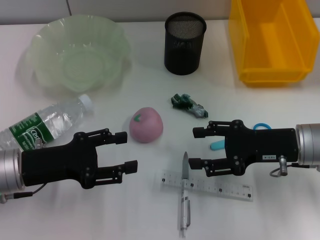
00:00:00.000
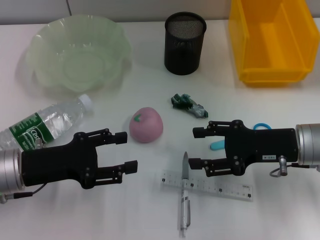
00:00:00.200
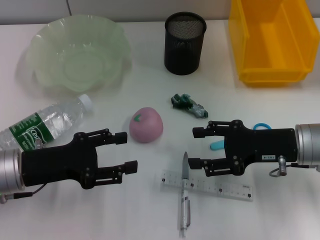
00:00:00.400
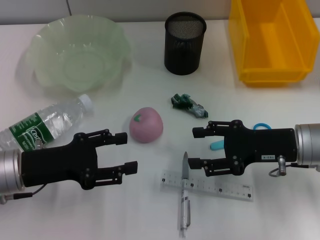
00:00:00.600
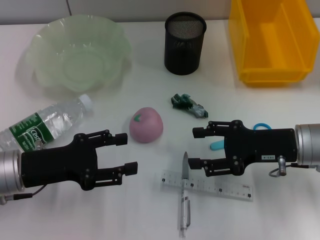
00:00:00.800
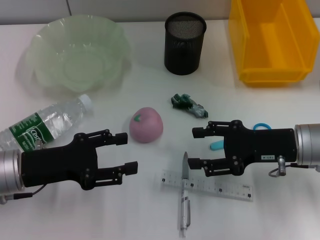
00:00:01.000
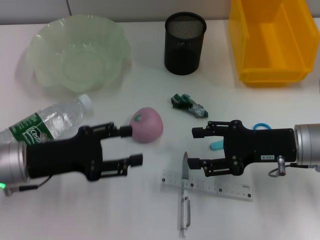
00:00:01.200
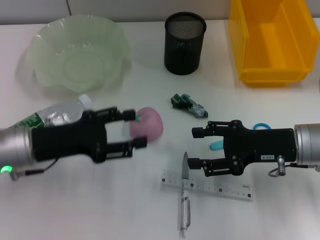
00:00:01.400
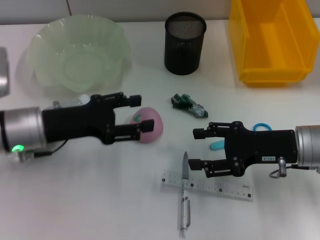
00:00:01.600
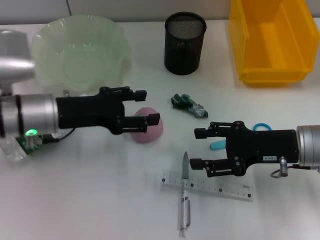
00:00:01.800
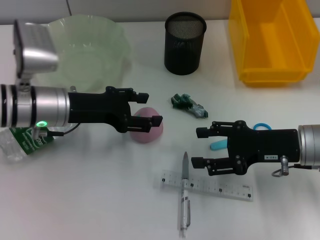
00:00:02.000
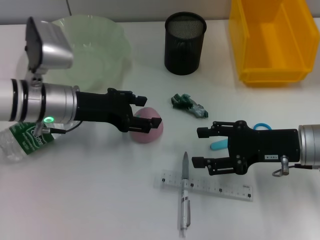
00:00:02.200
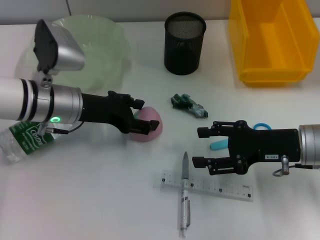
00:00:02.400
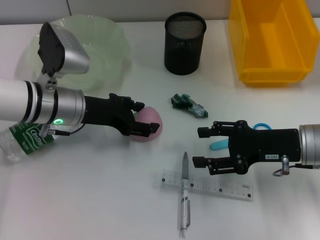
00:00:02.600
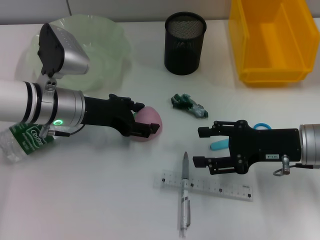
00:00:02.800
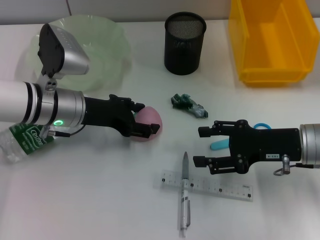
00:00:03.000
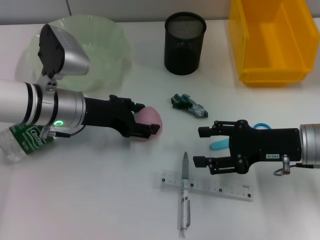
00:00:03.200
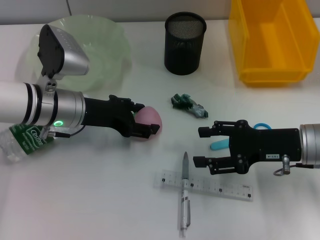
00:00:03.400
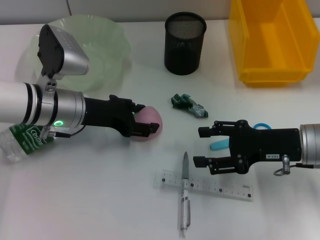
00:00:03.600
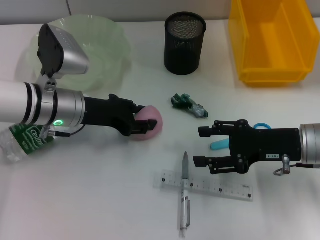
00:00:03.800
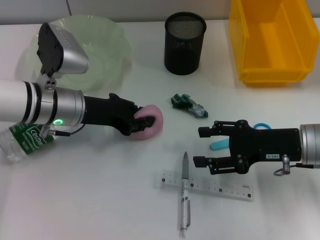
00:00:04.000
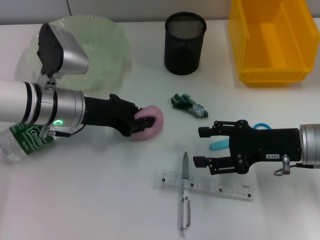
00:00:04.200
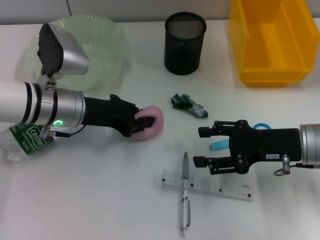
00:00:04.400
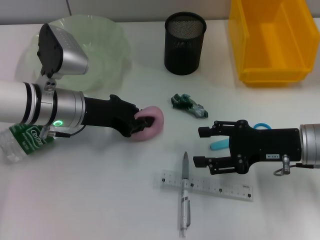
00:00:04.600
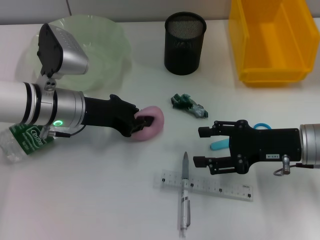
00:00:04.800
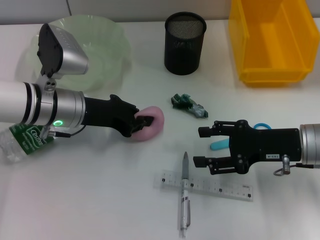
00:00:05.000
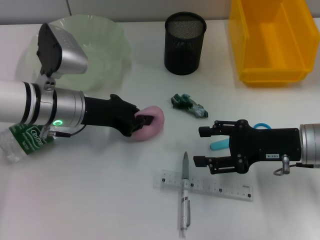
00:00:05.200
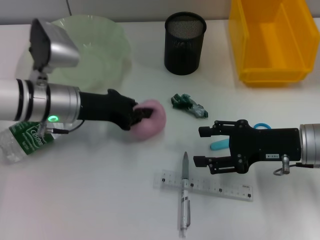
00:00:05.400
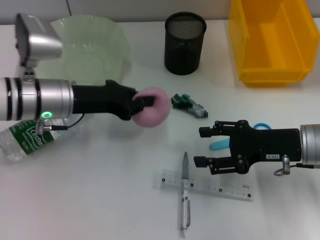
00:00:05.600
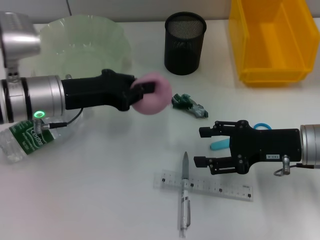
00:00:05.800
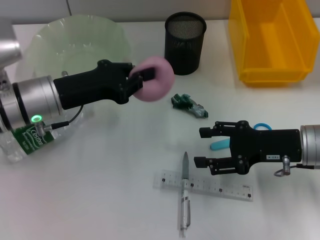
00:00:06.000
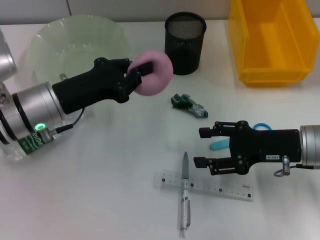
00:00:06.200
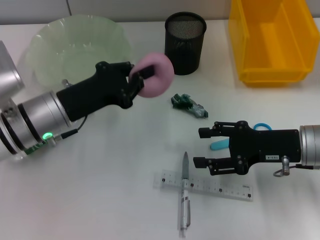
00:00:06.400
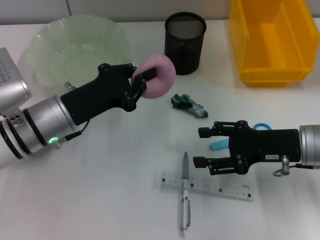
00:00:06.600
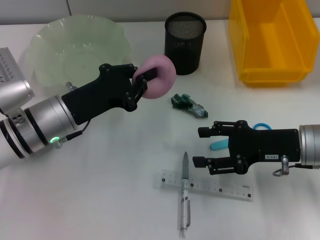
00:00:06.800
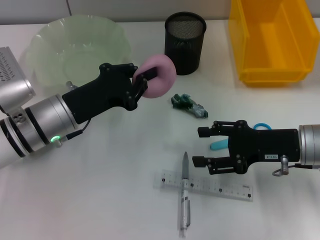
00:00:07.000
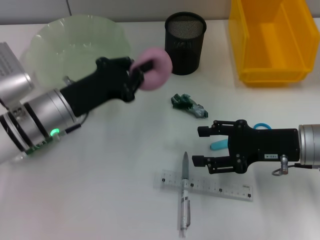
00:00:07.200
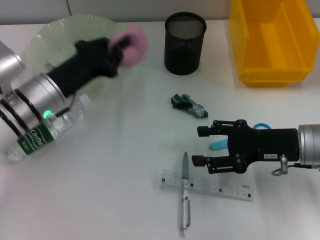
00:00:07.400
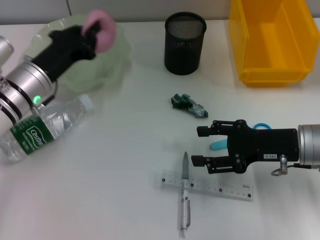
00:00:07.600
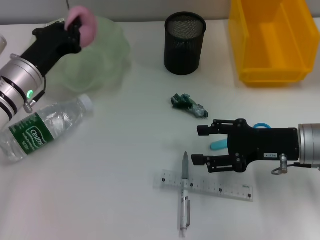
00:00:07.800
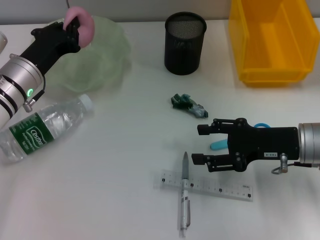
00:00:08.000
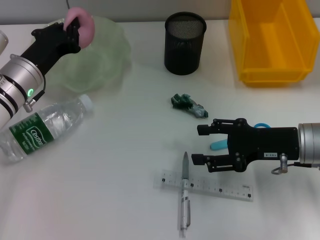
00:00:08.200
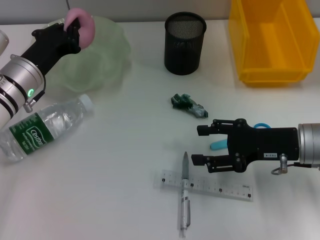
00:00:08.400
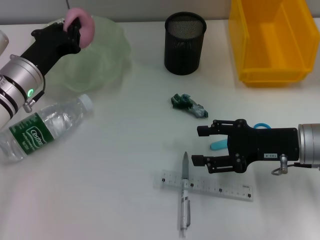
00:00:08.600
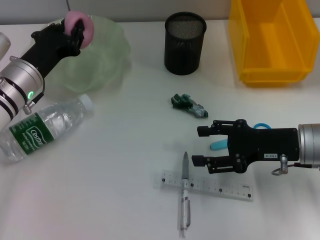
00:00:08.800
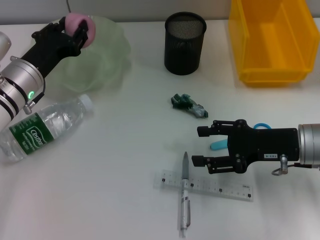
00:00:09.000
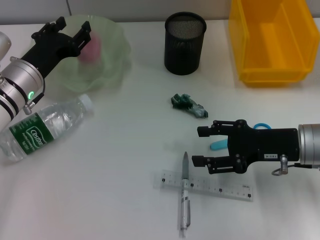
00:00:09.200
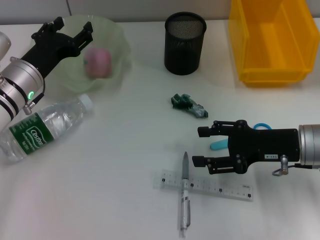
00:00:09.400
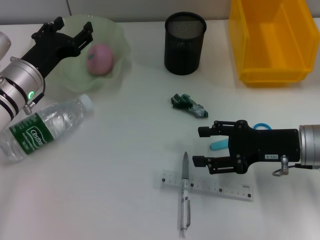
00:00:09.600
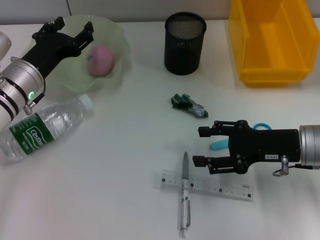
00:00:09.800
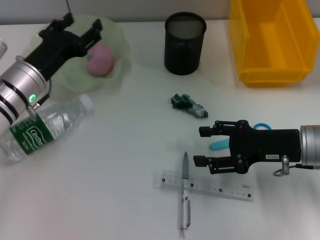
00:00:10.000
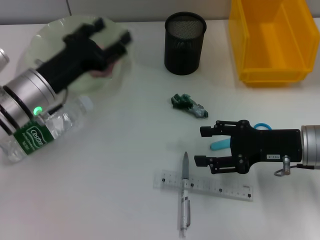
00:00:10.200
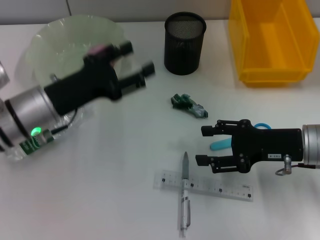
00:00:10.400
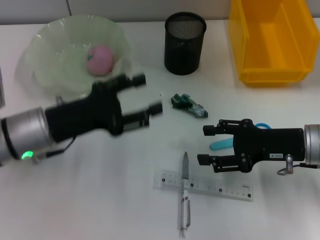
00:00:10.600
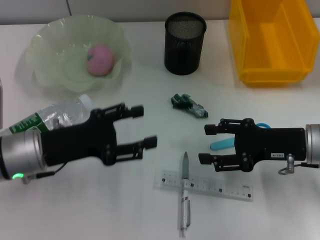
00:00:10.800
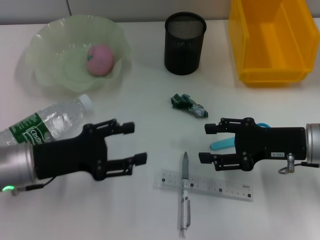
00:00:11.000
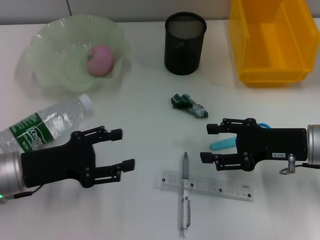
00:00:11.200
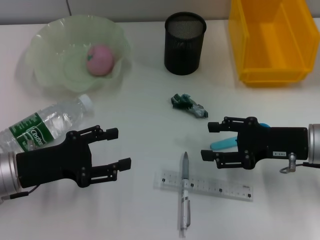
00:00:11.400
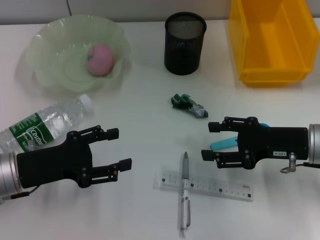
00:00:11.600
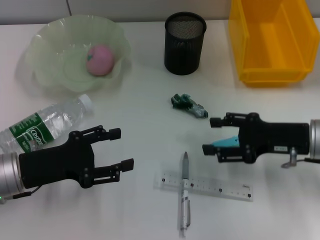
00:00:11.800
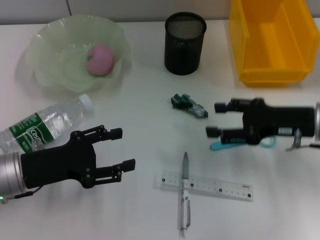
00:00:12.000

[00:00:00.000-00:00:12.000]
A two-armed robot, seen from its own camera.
Step, 00:00:00.000 to 00:00:05.000: Grab the peach with the left hand.
Step, 00:00:05.400 to 00:00:09.400: Place the peach into the fruit bowl with the left hand.
00:00:00.000 to 00:00:01.600: The left gripper heads forward, covering roughly 5 cm.
00:00:01.600 to 00:00:03.000: The left gripper goes about 5 cm forward.
00:00:03.000 to 00:00:04.400: The left gripper closes its fingers.
00:00:07.600 to 00:00:09.000: The left gripper opens up.
00:00:09.000 to 00:00:10.400: The left gripper travels backward by roughly 5 cm, and opens its fingers.
00:00:10.400 to 00:00:12.000: The left gripper goes approximately 5 cm backward.

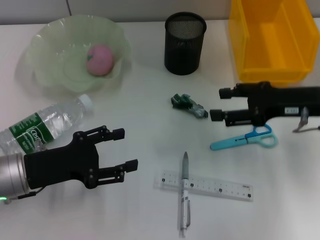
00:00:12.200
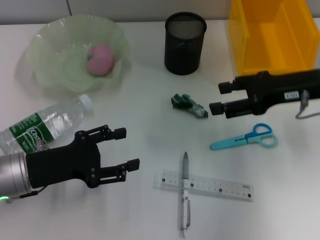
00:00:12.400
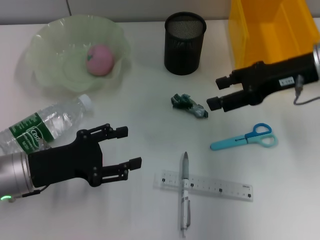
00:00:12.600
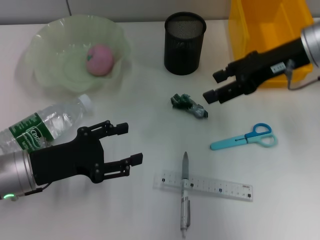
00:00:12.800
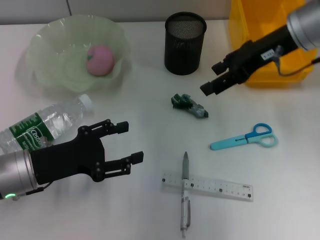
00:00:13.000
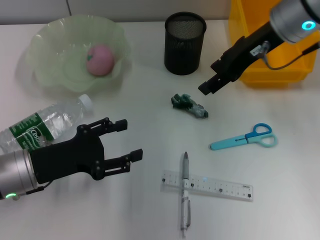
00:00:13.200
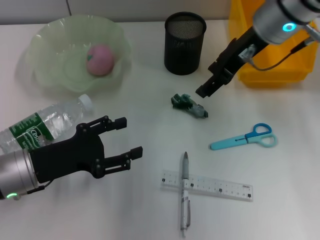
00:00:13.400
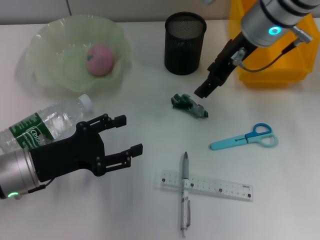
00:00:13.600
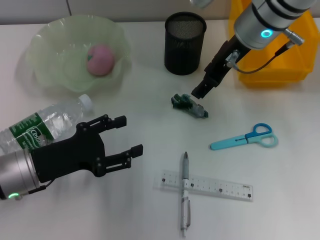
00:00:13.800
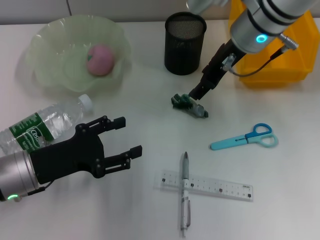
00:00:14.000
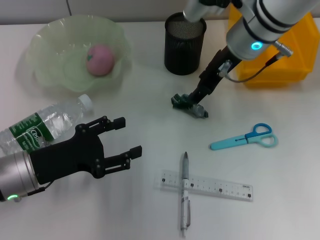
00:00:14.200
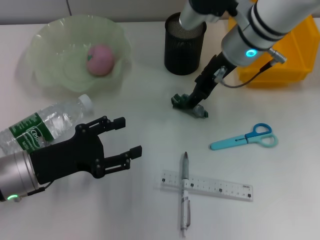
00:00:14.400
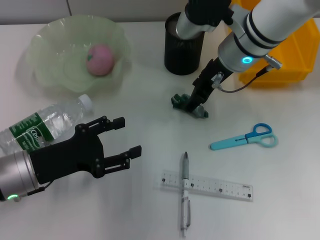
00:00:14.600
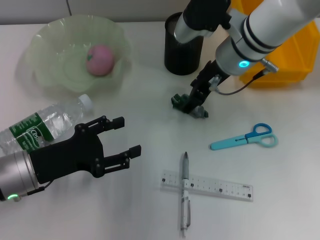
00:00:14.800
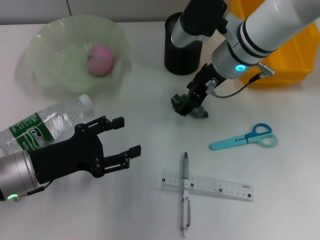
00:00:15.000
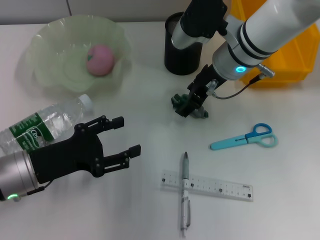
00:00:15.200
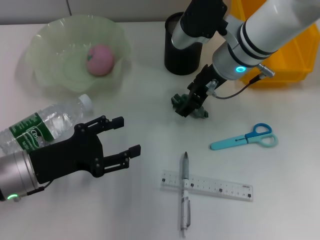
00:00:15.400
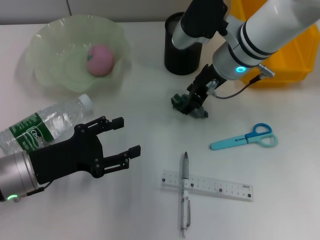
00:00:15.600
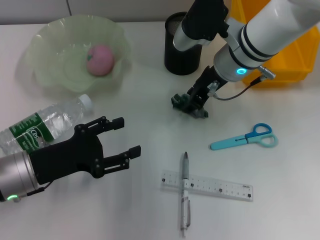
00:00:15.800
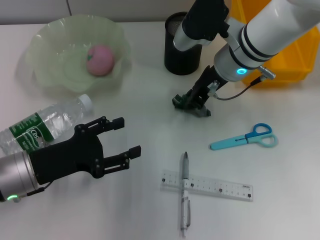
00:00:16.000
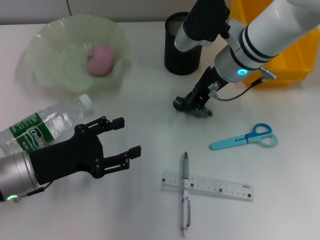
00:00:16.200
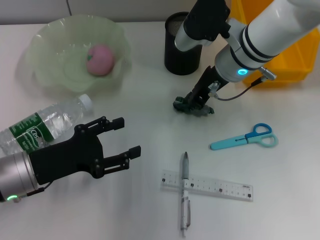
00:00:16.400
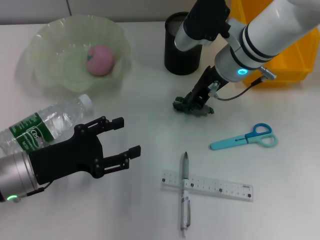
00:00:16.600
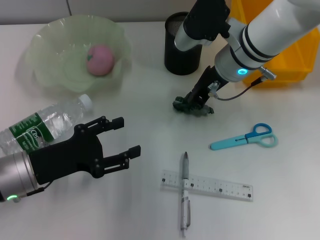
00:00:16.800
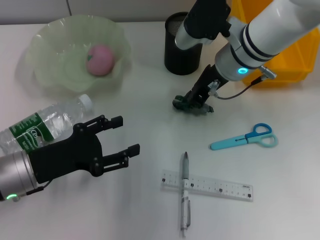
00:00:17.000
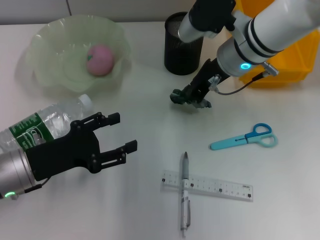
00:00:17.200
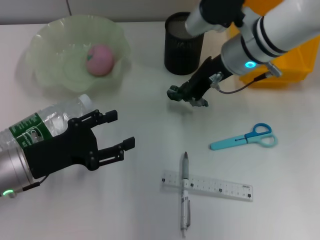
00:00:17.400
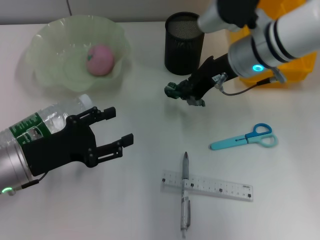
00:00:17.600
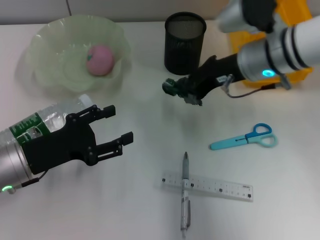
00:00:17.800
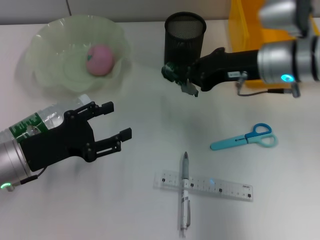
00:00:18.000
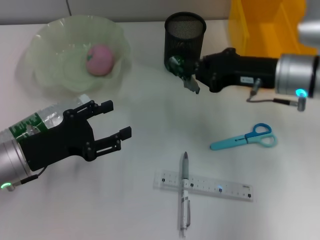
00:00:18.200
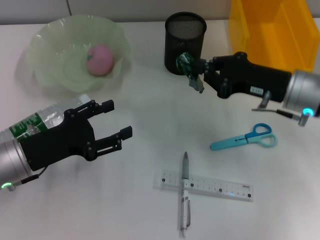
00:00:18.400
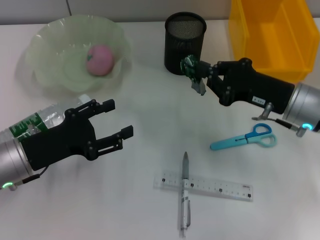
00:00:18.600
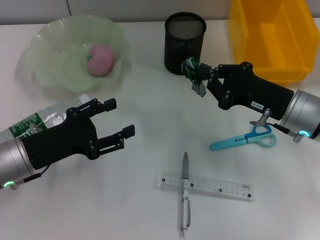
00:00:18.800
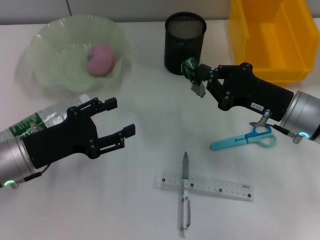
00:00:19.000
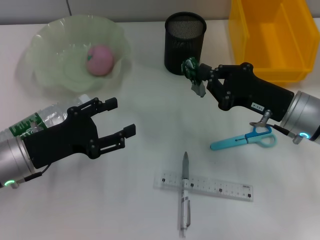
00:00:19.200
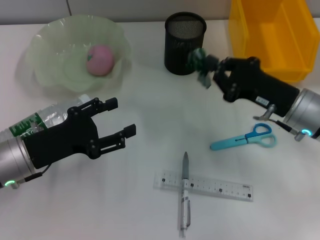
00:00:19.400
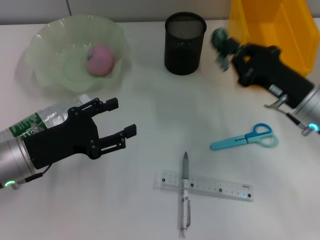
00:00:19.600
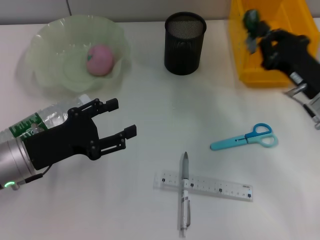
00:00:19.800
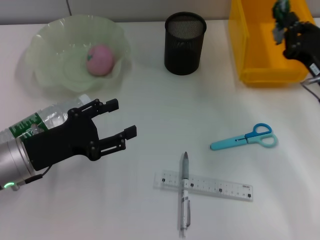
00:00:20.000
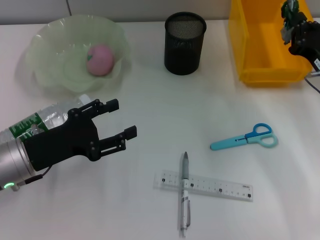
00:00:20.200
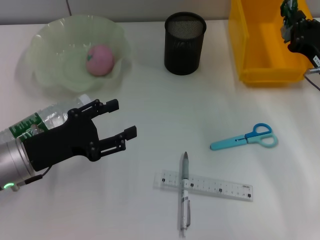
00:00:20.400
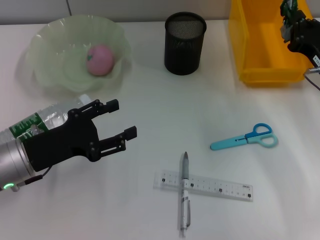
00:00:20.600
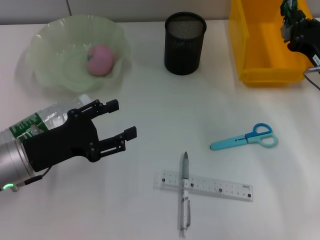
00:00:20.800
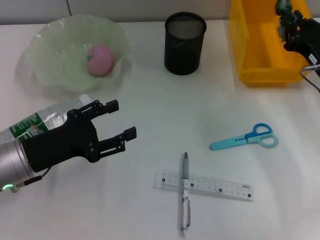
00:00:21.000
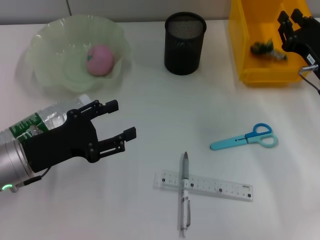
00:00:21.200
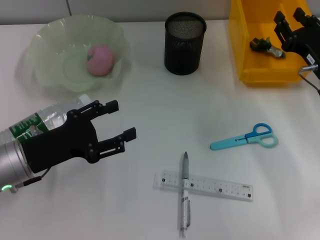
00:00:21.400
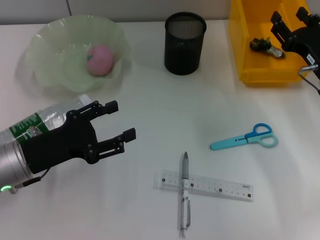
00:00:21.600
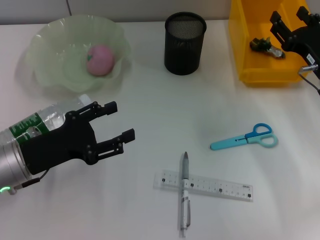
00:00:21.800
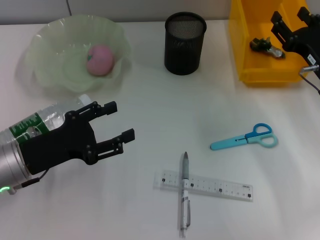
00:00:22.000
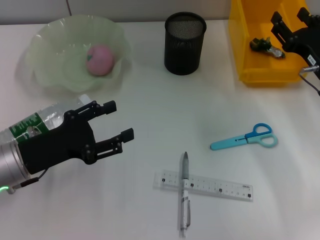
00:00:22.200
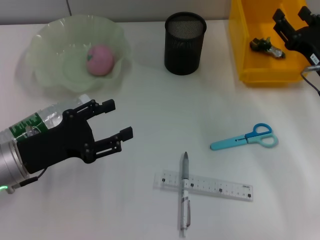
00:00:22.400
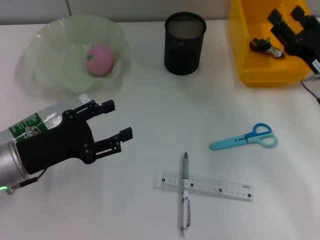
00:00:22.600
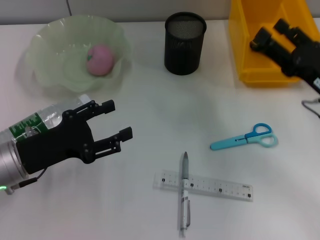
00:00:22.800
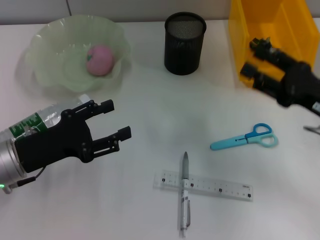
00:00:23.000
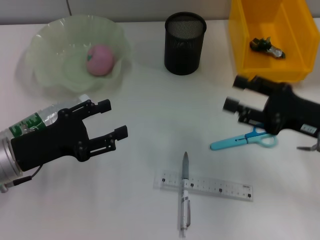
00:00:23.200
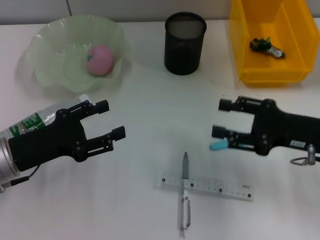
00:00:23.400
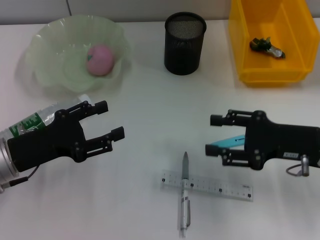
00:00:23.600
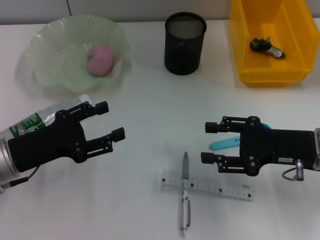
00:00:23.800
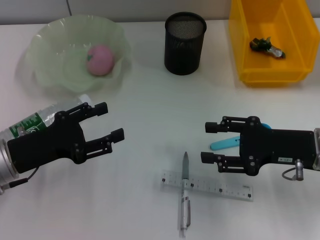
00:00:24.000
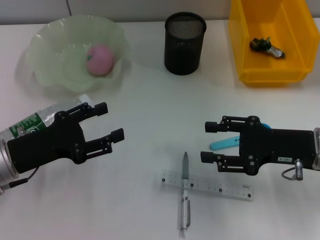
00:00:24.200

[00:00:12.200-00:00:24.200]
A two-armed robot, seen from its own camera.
Step, 00:00:12.200 to 00:00:16.800: Grab the plastic with the right hand.
Step, 00:00:17.000 to 00:00:21.200: Place the plastic into the trash can with the right hand.
00:00:12.200 to 00:00:13.800: The right gripper is displaced to the left, forward and upward by roughly 20 cm.
00:00:13.800 to 00:00:15.200: The right gripper shifts approximately 5 cm downward.
00:00:15.200 to 00:00:16.600: The right gripper closes up.
00:00:16.600 to 00:00:18.200: The right gripper heads to the right and backward, covering about 10 cm.
00:00:18.200 to 00:00:19.800: The right gripper goes approximately 5 cm downward.
00:00:19.800 to 00:00:21.200: The grippers stay close to where they were, moving slightly.
00:00:21.200 to 00:00:22.600: The right gripper opens its fingers.
